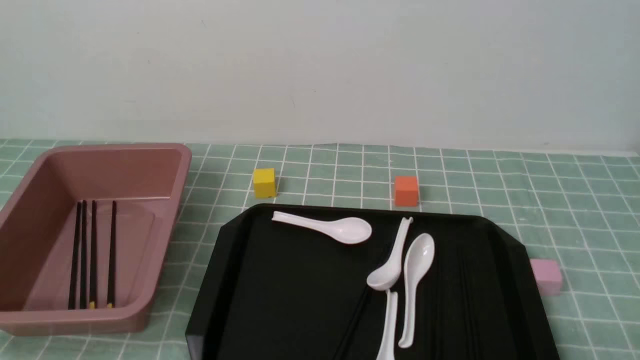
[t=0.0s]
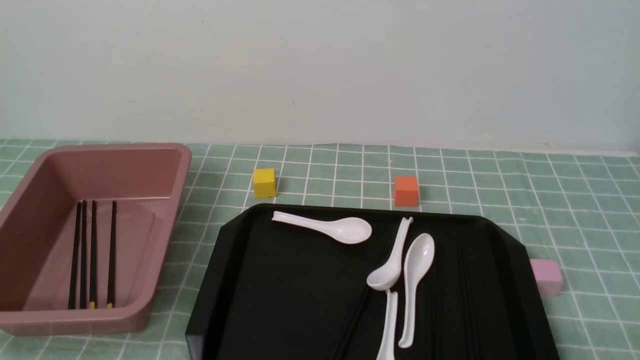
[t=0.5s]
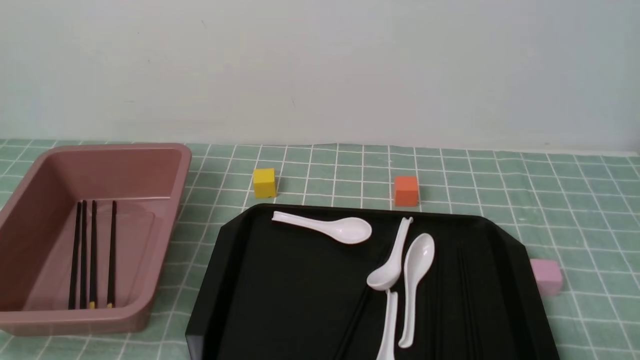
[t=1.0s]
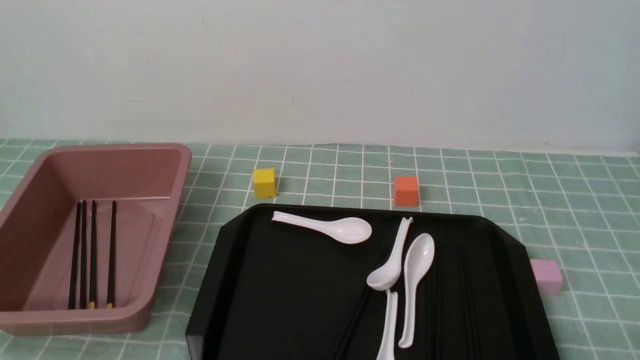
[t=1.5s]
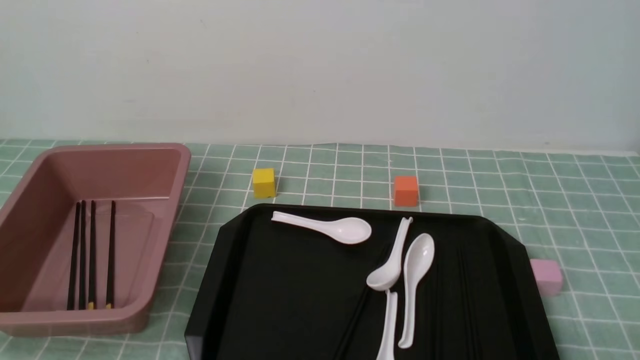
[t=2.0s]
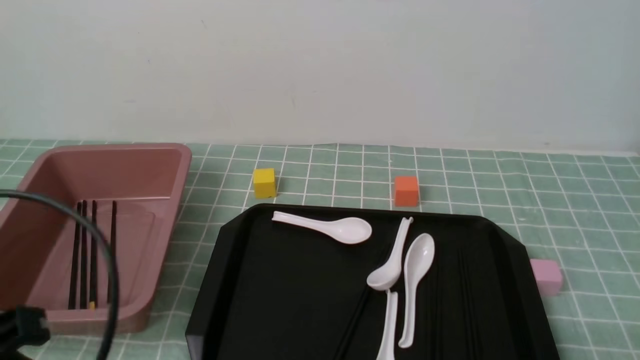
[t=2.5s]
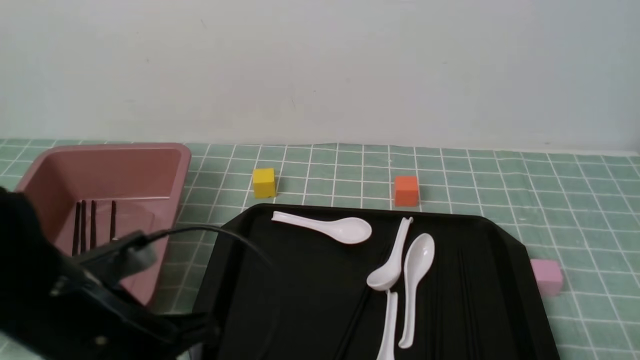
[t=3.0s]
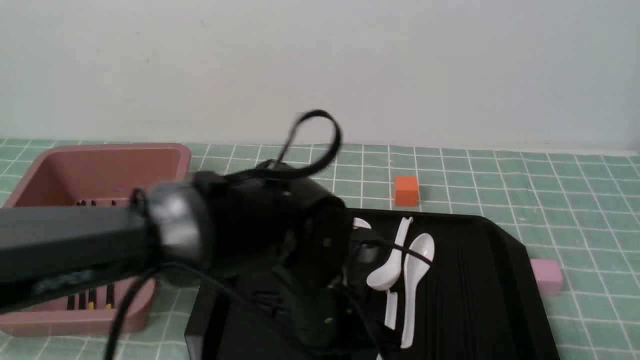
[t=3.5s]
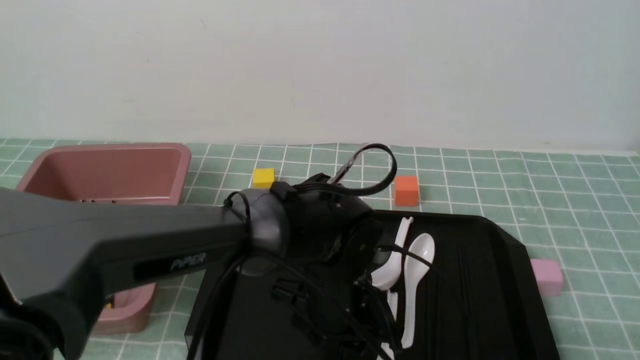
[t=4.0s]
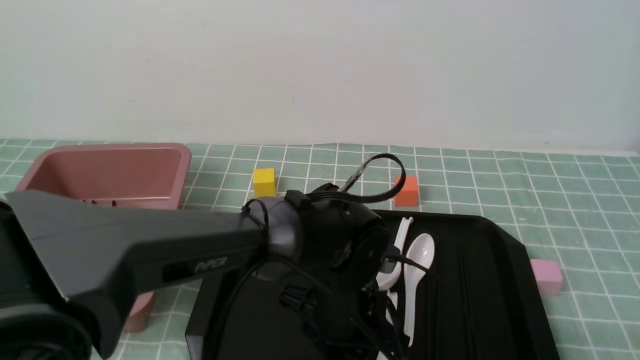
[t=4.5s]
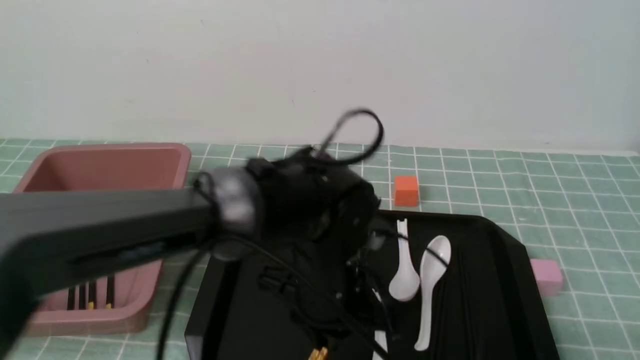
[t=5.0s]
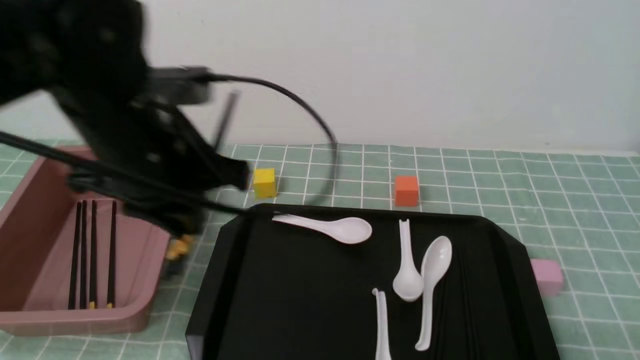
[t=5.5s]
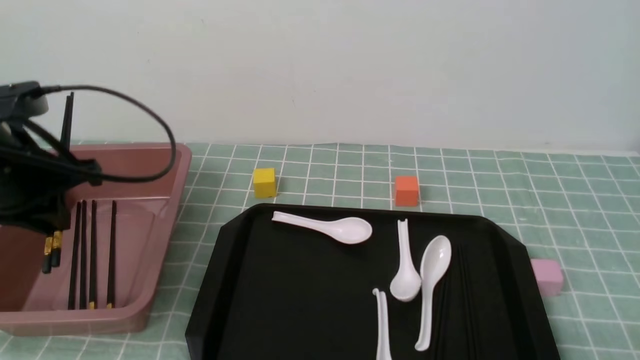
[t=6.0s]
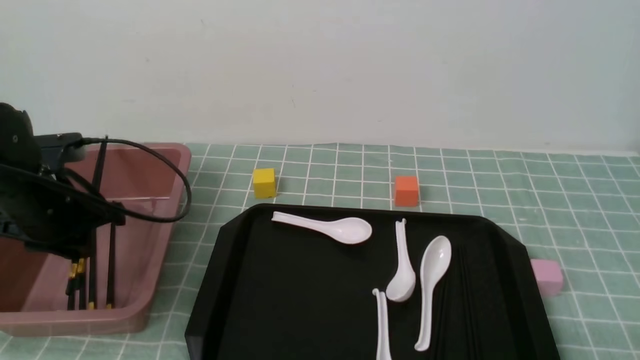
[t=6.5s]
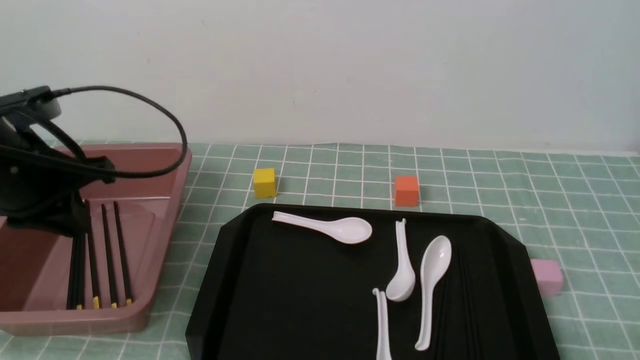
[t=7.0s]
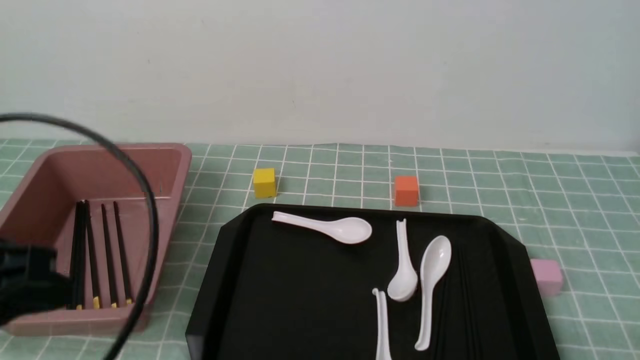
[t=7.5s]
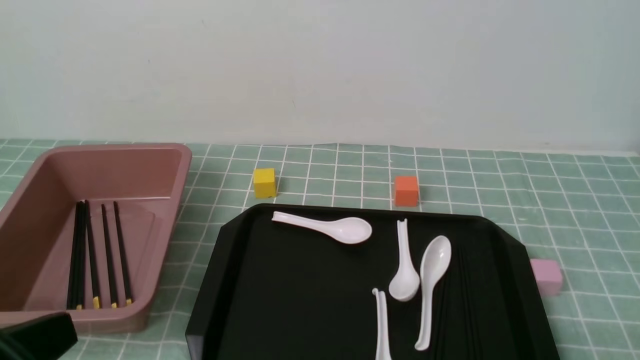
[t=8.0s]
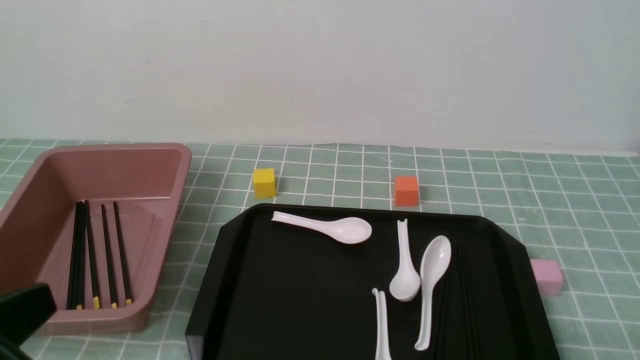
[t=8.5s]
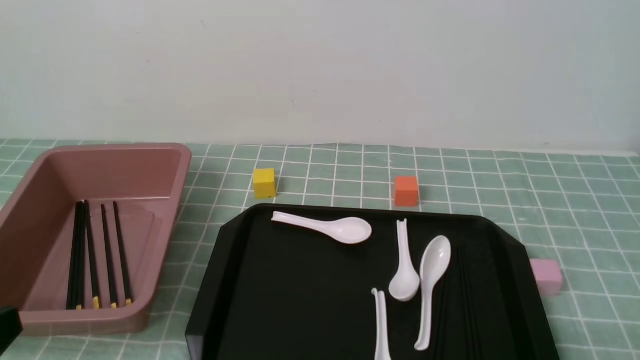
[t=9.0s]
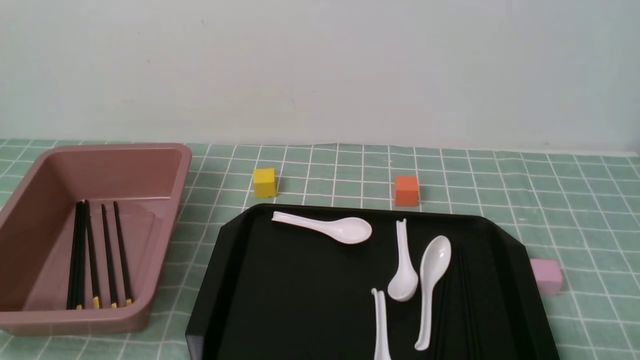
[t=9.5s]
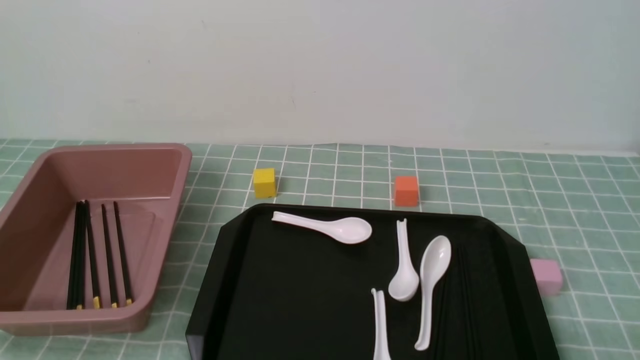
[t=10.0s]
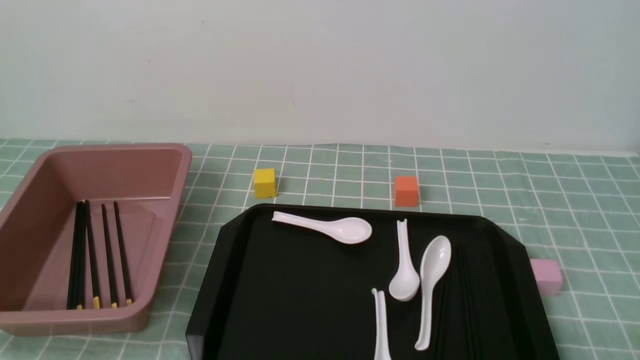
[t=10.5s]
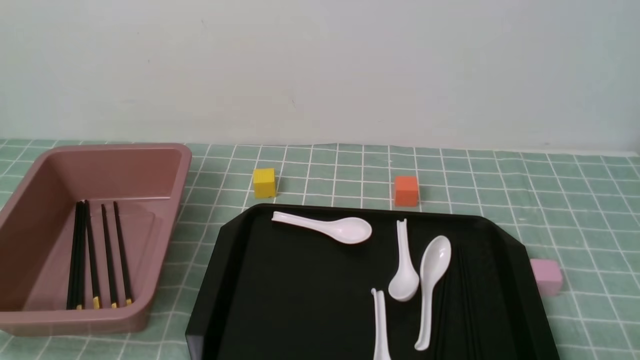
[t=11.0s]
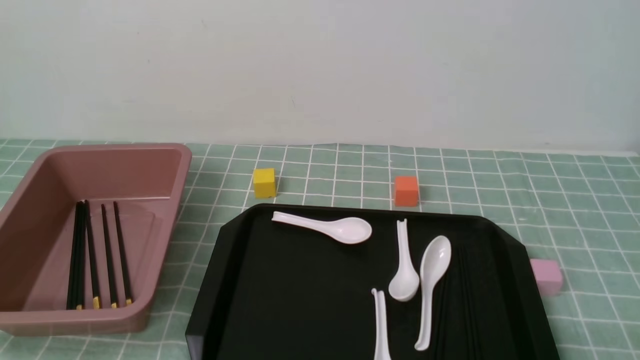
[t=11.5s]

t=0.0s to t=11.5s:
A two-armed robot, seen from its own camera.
Step, t=0.0s to t=5.0s: use the left arm to grab a pair of chopsticks.
Step, t=5.5s to t=7.0s: use the left arm to put the chopsticks into the lunch box.
t=2.0s to t=4.0s: The left gripper heads to the right and forward, covering approximately 35 cm, and opens.
t=4.0s to t=6.0s: The left gripper travels to the left and upward by roughly 30 cm, and closes.
t=6.0s to t=7.5s: The left gripper goes about 15 cm backward, and closes its fingers.
t=7.5s to t=9.5s: The left gripper travels downward and backward by approximately 15 cm.
